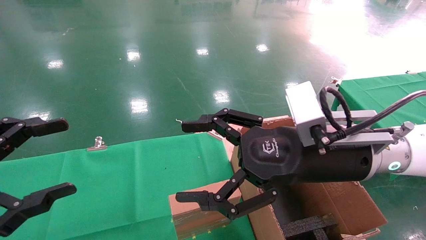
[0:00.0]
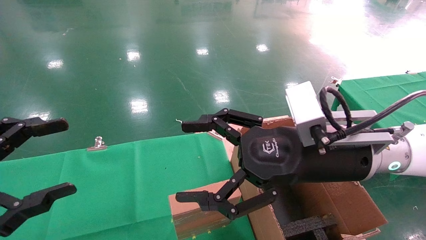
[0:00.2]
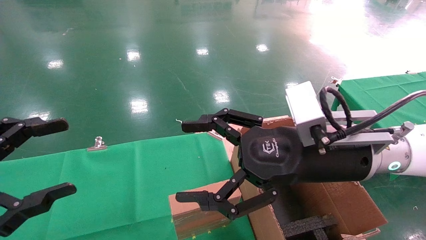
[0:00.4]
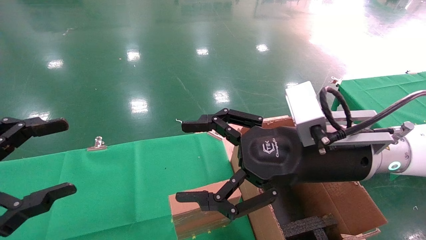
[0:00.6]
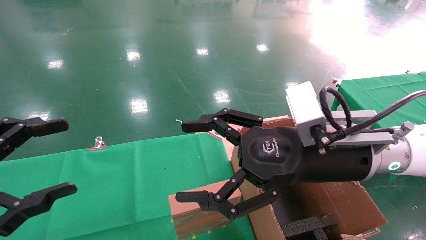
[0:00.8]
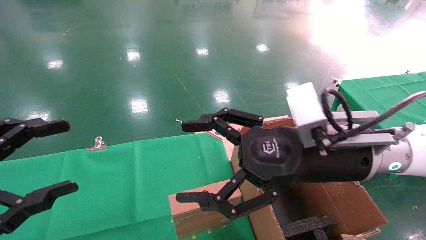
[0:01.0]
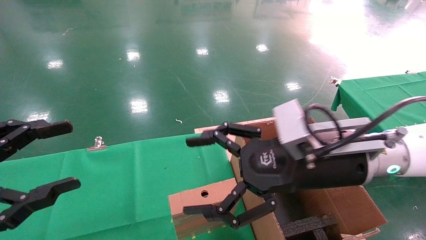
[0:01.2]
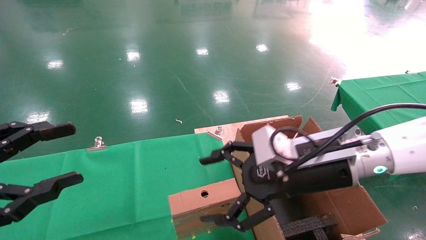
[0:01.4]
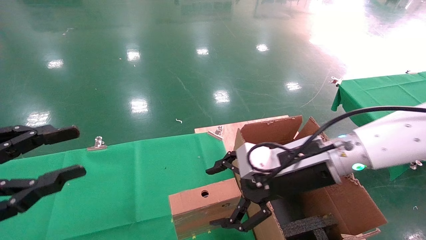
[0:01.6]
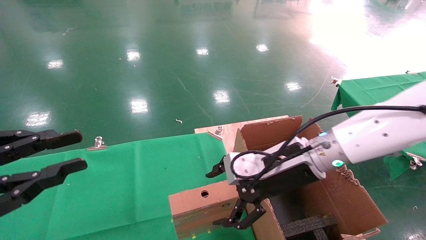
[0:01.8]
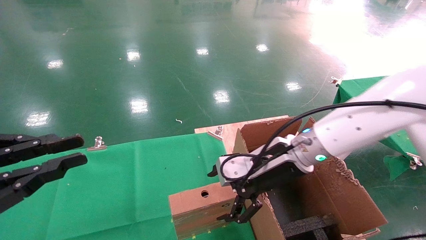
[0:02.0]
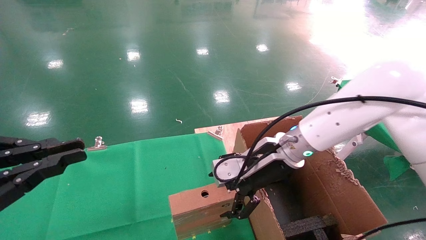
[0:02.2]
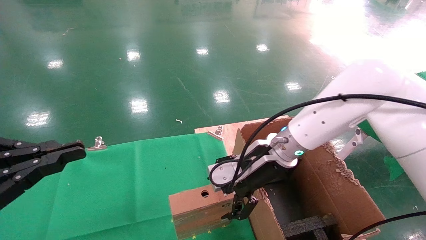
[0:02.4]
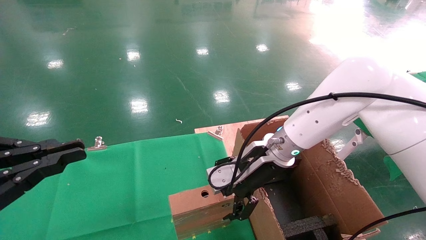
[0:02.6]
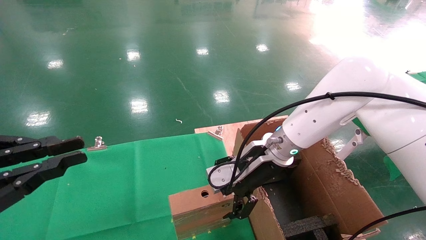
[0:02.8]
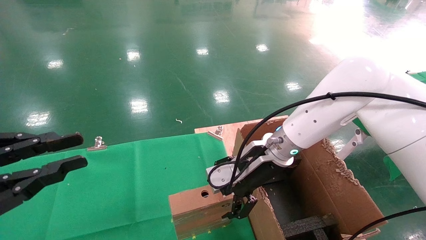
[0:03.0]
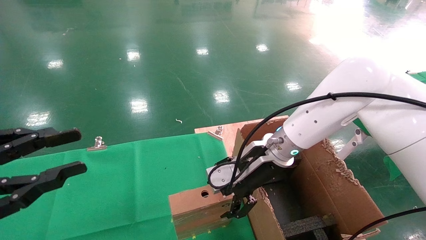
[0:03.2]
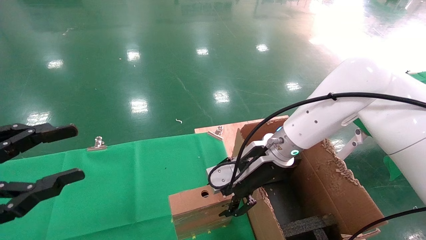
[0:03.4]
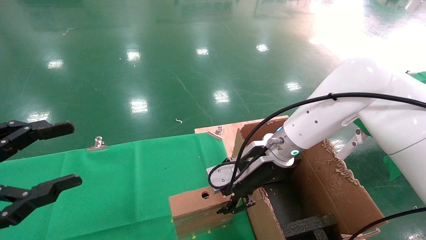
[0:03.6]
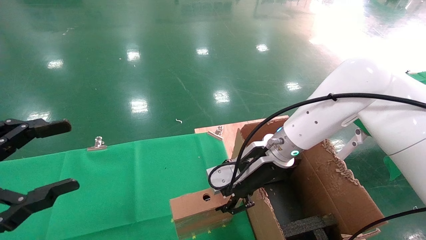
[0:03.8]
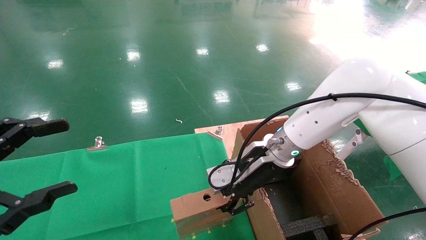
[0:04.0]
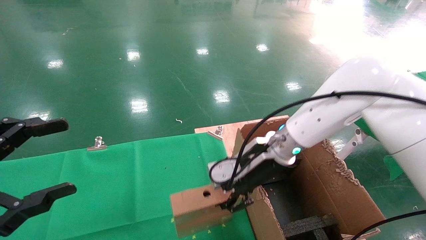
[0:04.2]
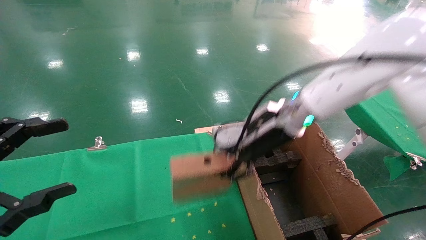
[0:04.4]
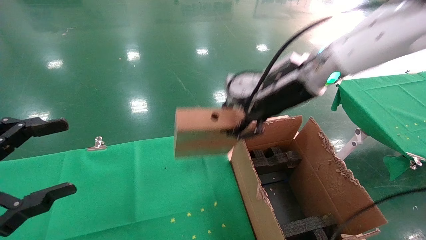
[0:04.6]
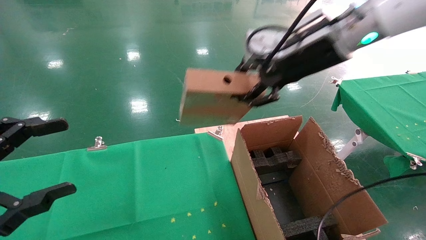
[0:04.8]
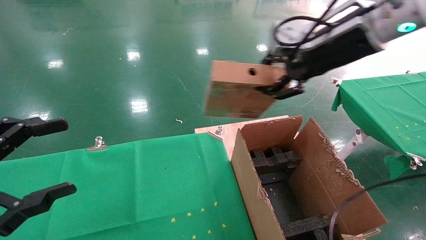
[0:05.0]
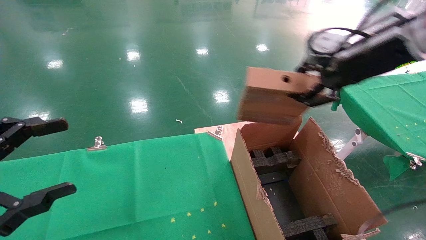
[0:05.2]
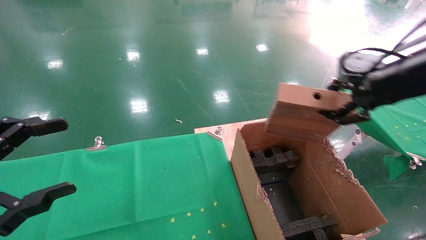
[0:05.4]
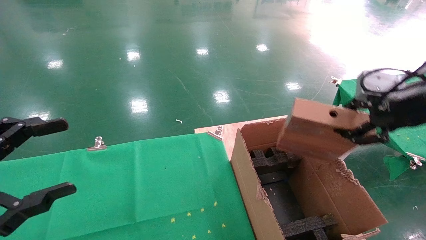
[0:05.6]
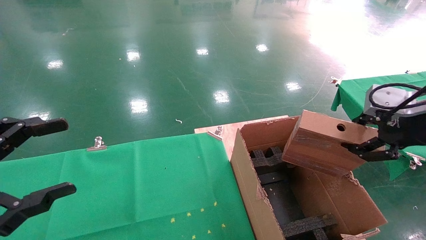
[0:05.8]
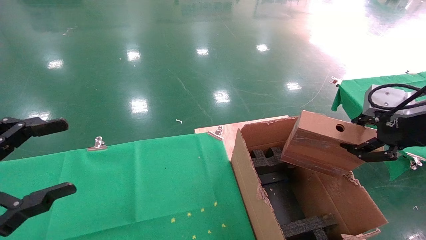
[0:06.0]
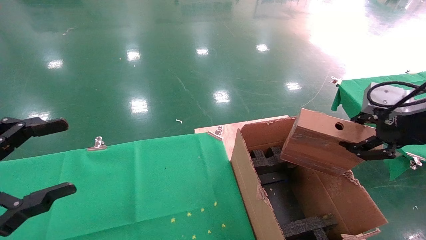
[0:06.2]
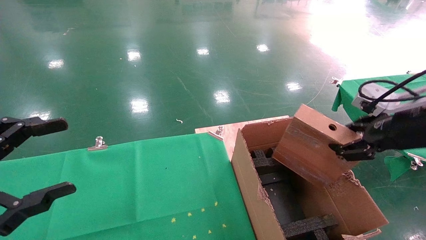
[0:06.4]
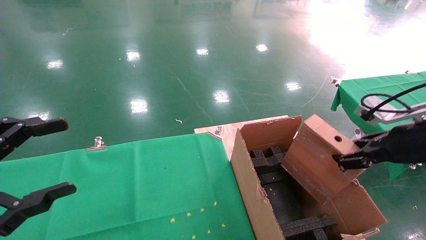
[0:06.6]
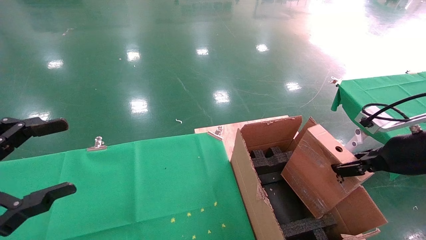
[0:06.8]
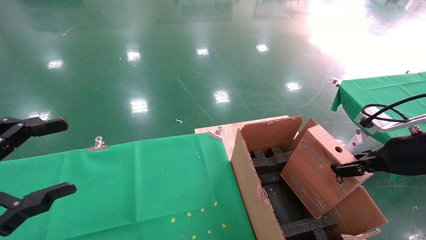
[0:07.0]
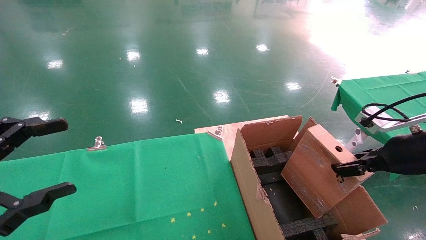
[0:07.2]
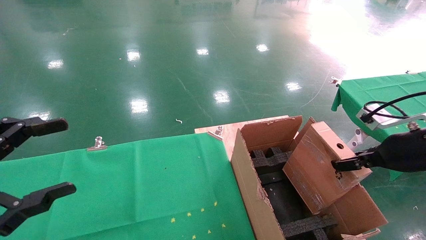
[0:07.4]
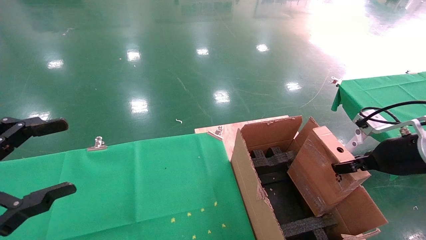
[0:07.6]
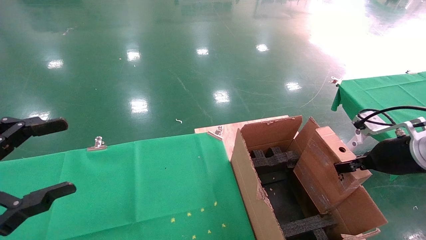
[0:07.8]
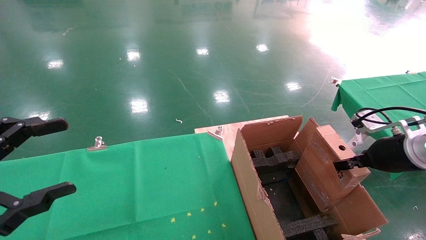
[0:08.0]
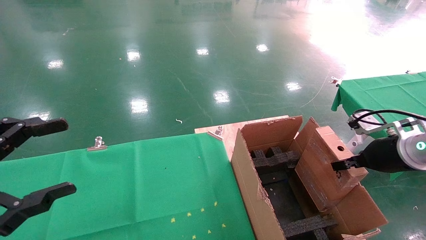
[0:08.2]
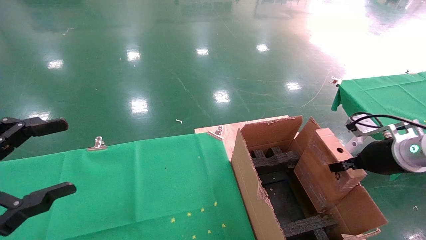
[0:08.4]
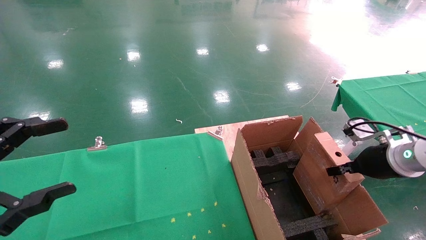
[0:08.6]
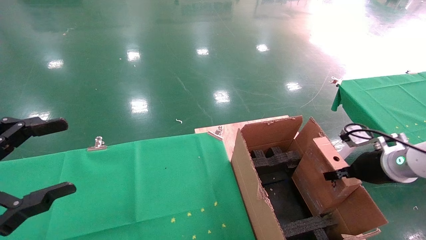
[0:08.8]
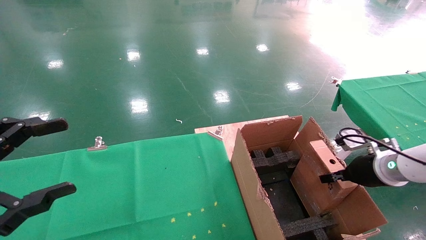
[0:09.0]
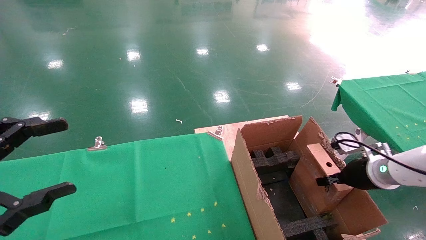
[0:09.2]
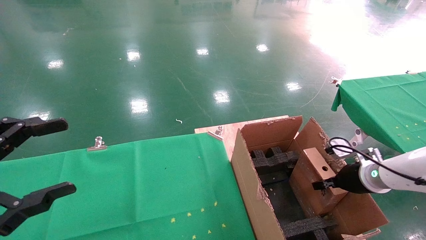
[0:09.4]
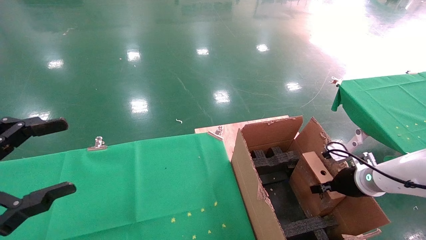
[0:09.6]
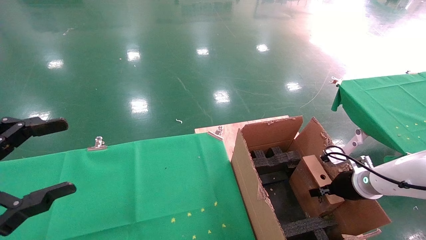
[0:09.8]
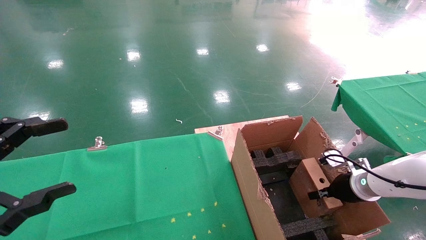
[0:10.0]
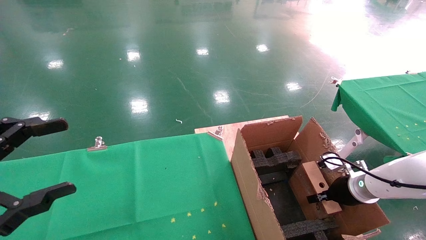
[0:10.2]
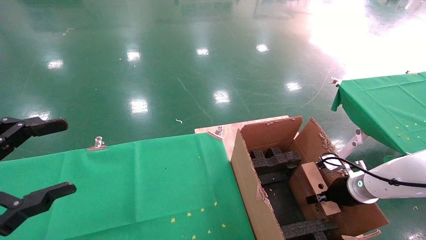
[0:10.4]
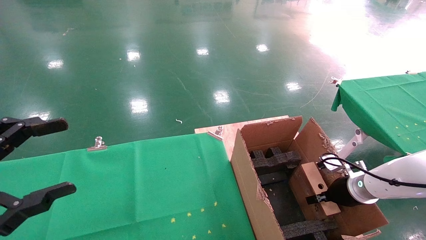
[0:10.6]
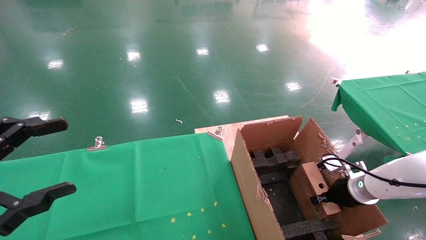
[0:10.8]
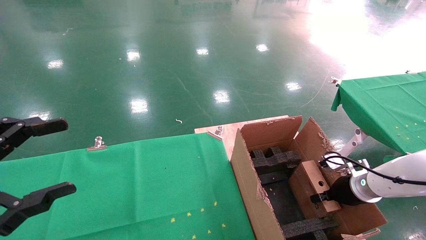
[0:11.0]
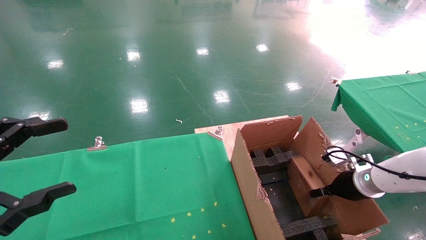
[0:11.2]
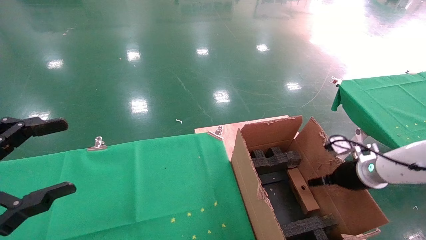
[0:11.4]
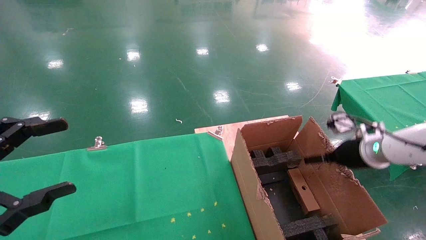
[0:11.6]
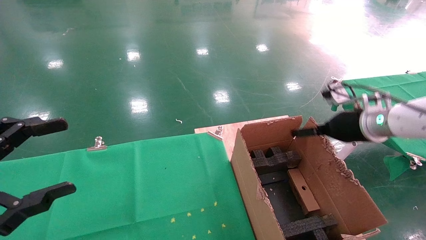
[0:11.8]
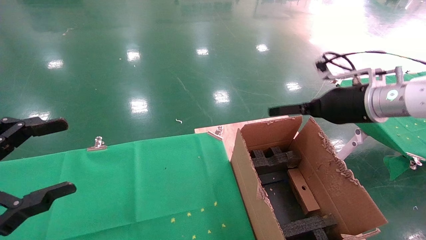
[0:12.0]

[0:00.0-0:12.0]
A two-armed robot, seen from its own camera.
Task of the whole recording: using a robotic arm to pick up a cardboard box and palace it the carton.
Step, 0:01.4 to 0:03.6: Pick up the mouse and the power cord paper box.
Step, 0:03.8 to 0:11.0: Place the mouse and the power cord paper box into the container.
0:00.0 to 0:01.6: The right gripper shifts by about 5 cm; the left gripper closes up.
0:01.6 to 0:03.0: The right gripper travels forward by some 10 cm. Meanwhile the left gripper closes up.
0:03.0 to 0:04.4: The left gripper opens its fingers. The right gripper goes some 10 cm upward, and closes up.
0:04.4 to 0:06.0: The right gripper goes about 25 cm to the right and backward.
0:06.0 to 0:07.6: The right gripper travels downward and forward by some 10 cm.
0:07.6 to 0:09.0: The right gripper goes approximately 10 cm downward and forward.
0:09.0 to 0:10.4: The right gripper heads downward, covering some 10 cm.
0:10.4 to 0:12.0: The right gripper is displaced upward by about 20 cm, and opens.

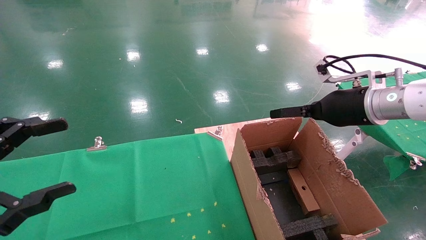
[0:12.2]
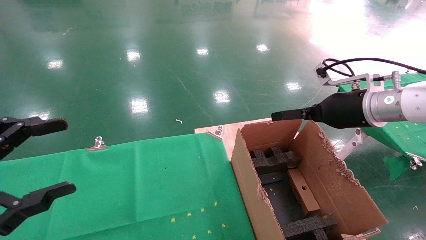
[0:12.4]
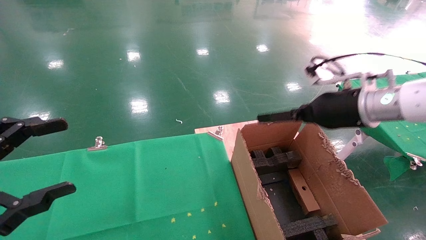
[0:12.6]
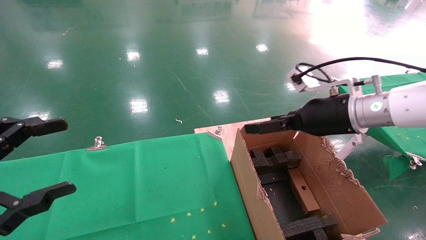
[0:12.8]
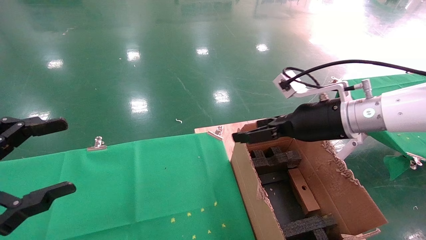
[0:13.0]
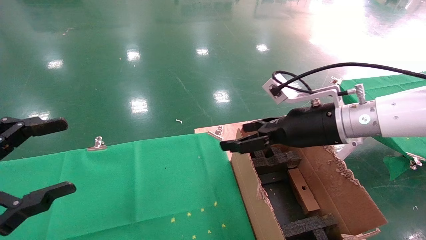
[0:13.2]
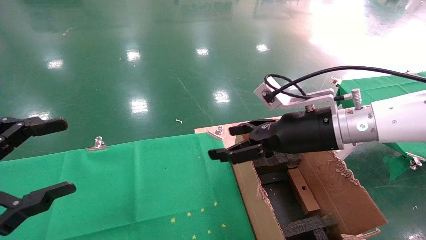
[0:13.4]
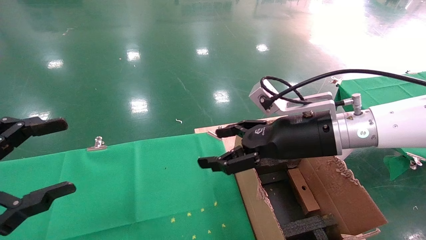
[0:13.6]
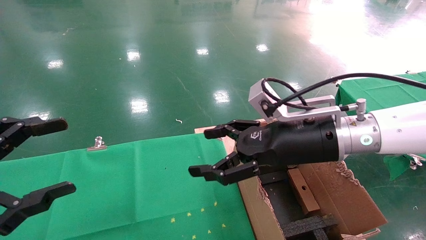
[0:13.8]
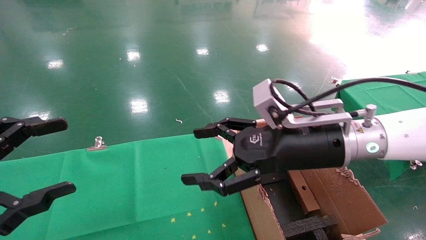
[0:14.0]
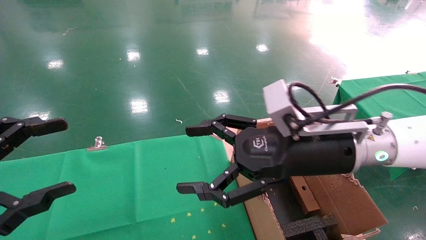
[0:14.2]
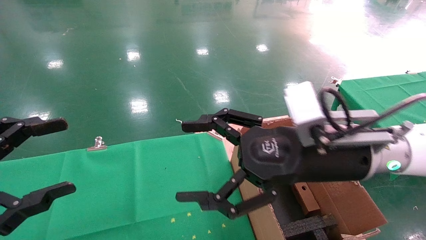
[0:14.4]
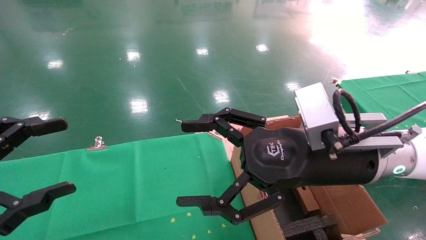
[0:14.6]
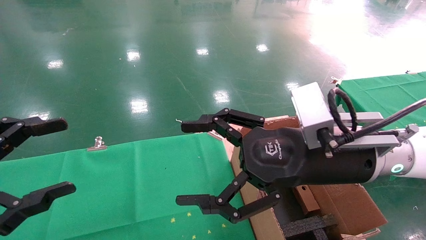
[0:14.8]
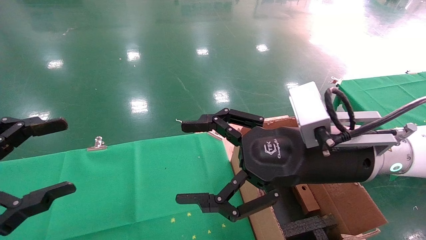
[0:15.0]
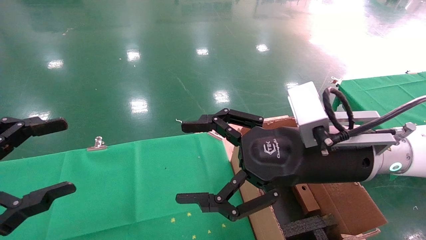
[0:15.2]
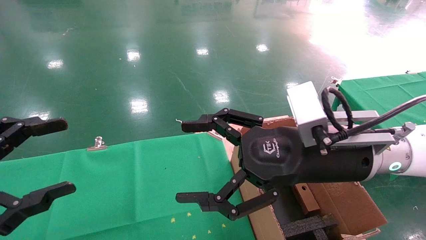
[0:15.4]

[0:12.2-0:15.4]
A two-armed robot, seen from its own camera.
Task of the whole recording: using a robotic arm to pick up a cardboard box and palace it the carton.
0:12.2 to 0:13.8: The right gripper moves to the left, approximately 15 cm.
